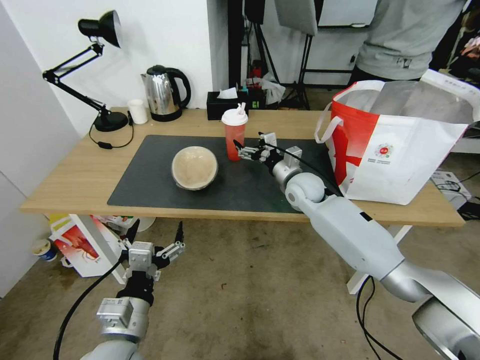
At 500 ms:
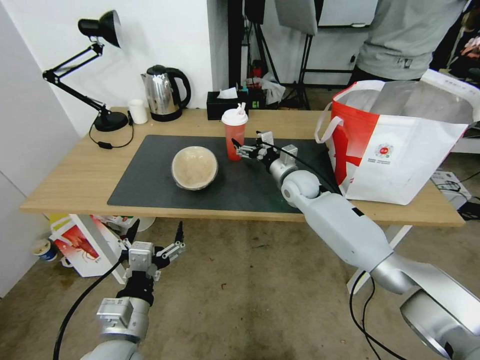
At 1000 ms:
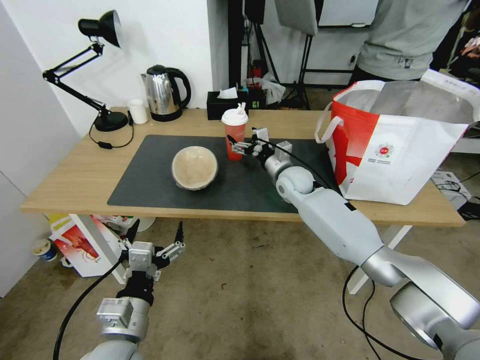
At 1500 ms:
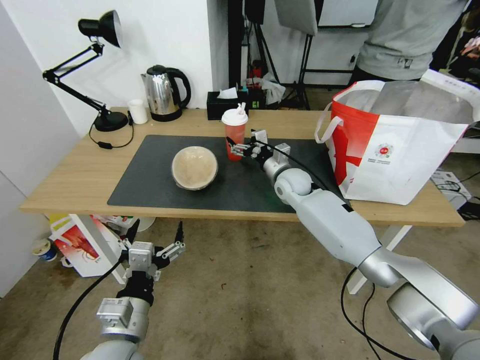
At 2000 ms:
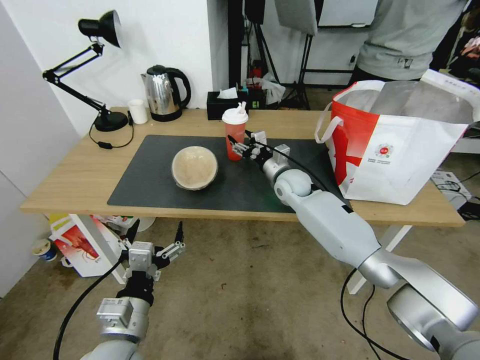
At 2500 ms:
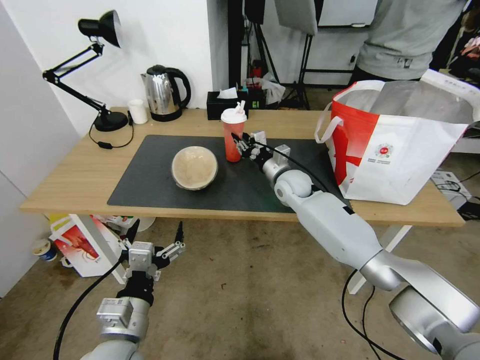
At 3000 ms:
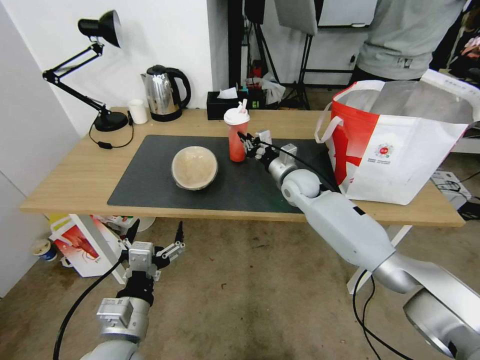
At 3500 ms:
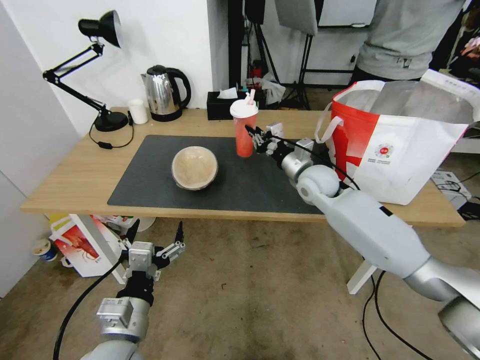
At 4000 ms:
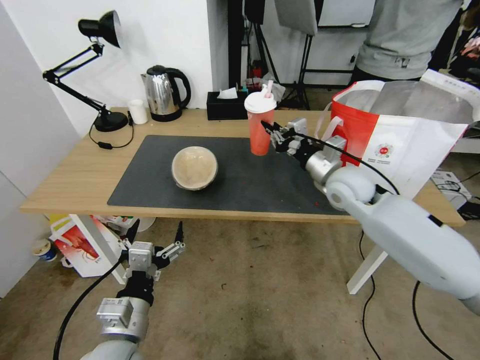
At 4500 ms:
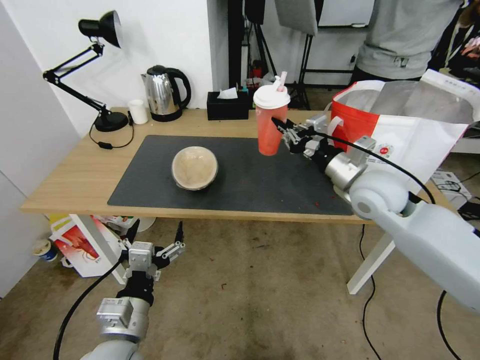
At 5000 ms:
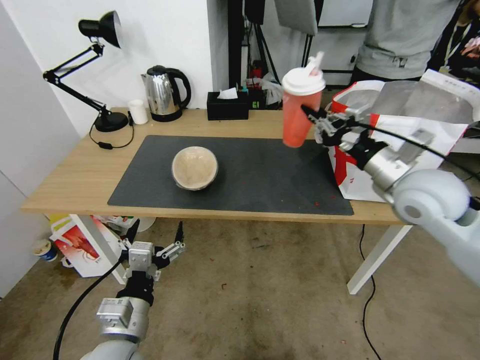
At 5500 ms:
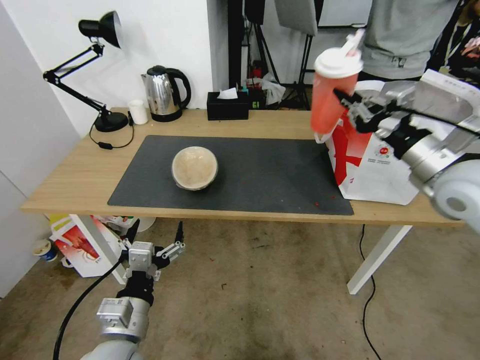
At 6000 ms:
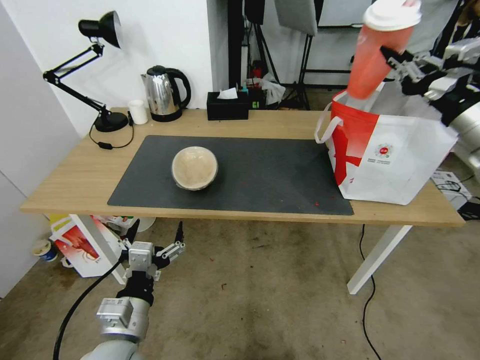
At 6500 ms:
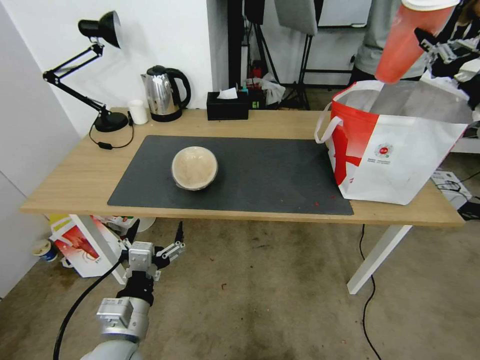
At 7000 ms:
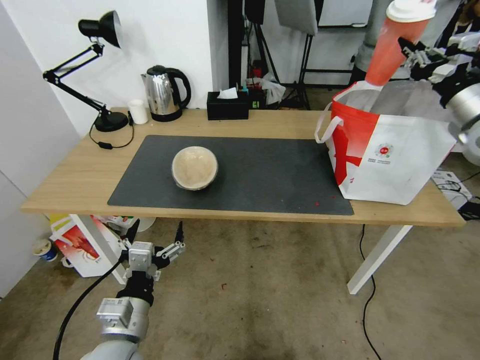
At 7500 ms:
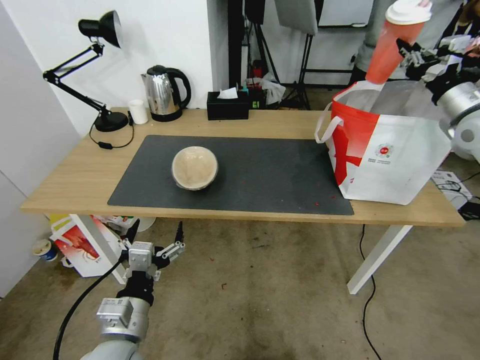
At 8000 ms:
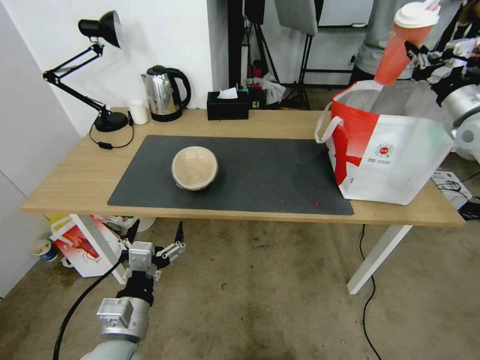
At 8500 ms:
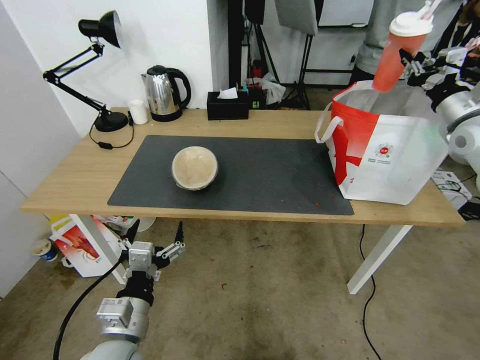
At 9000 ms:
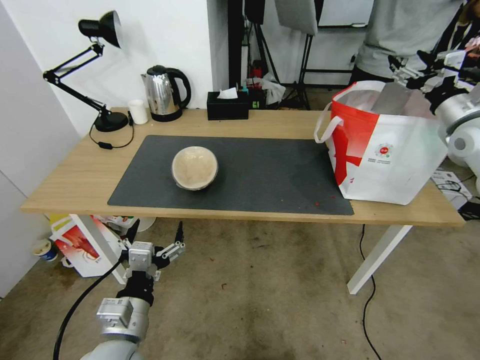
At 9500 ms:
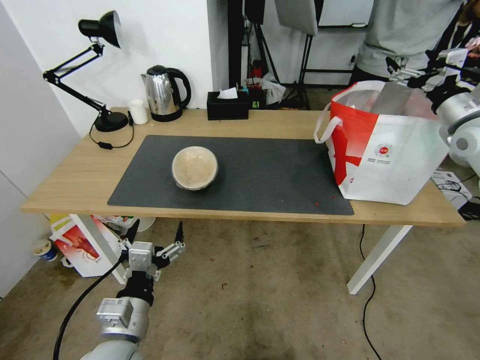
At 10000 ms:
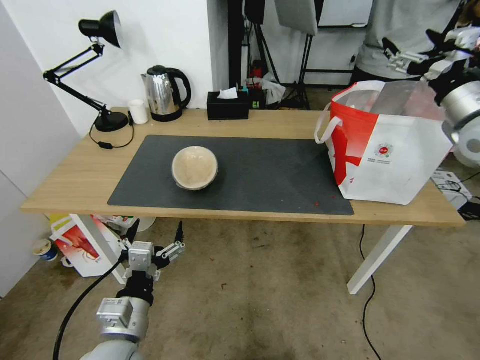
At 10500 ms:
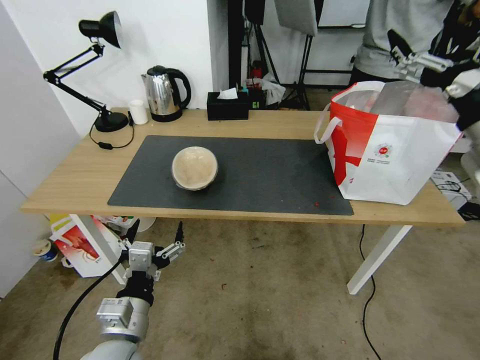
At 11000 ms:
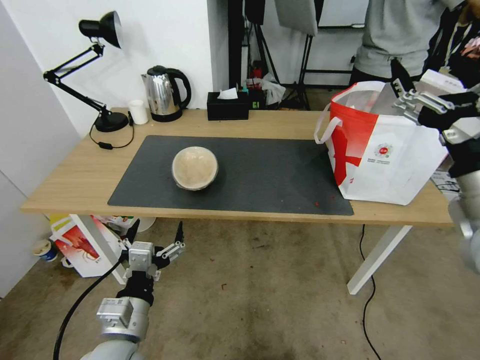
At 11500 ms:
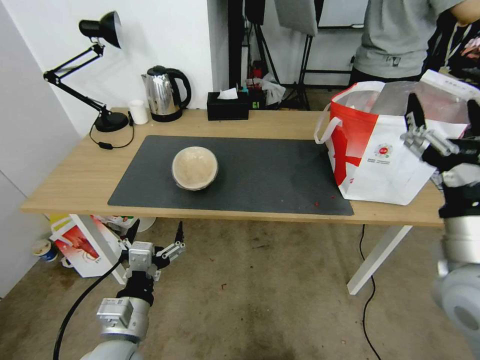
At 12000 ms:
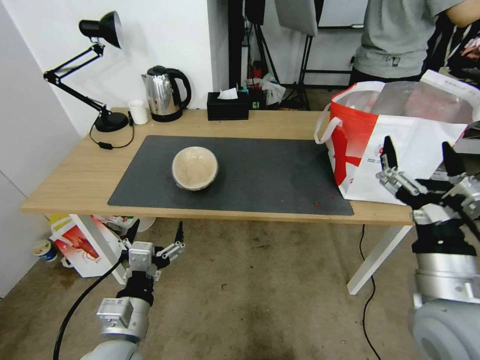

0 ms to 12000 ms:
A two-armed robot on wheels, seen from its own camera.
Task of the whole recording: Pick up the trash from the table and place it into the takeout bag.
0 ms to 2000 ms: The right gripper closes.
2000 ms to 4000 ms: The right gripper is displaced upward, to the right and backward by about 15 cm, and closes.
4000 ms to 6000 ms: The right gripper goes approximately 25 cm upward, to the right and backward.
6000 ms to 8000 ms: The right gripper is displaced forward and to the right by roughly 15 cm.
8000 ms to 10000 ms: The right gripper is displaced backward and to the left by roughly 10 cm, and opens its fingers.
10000 ms to 12000 ms: The right gripper goes about 30 cm backward, to the left and downward.

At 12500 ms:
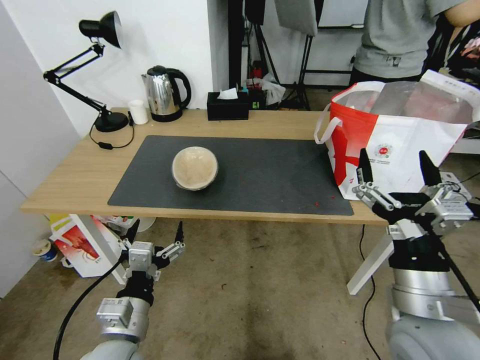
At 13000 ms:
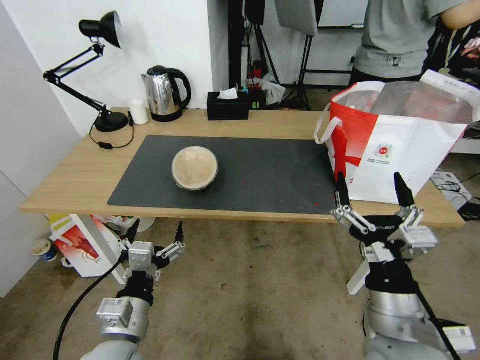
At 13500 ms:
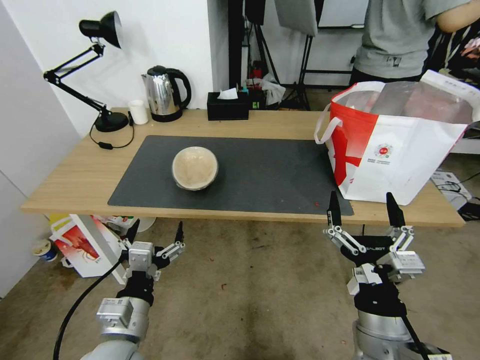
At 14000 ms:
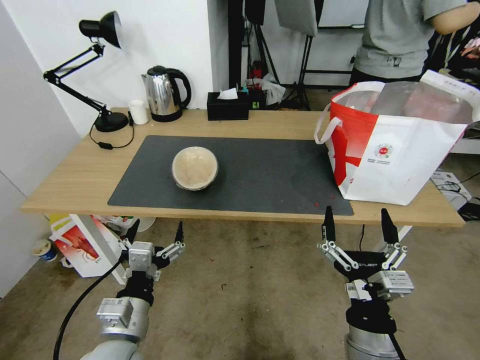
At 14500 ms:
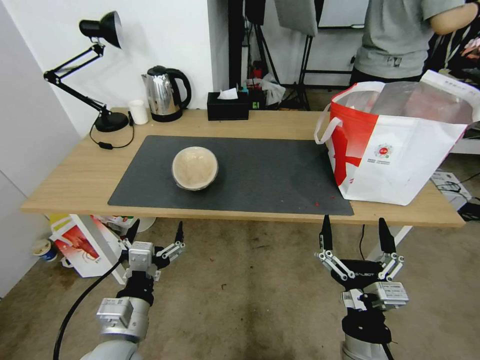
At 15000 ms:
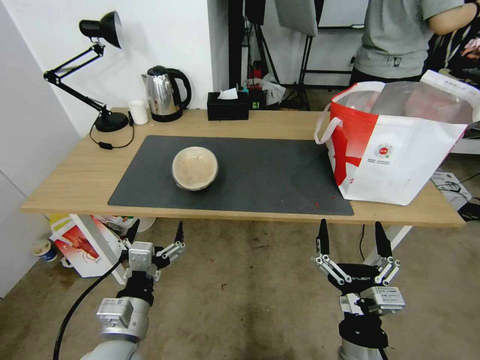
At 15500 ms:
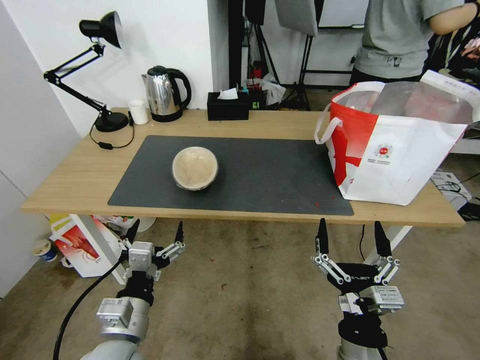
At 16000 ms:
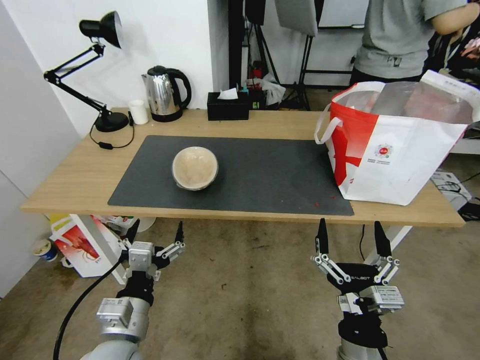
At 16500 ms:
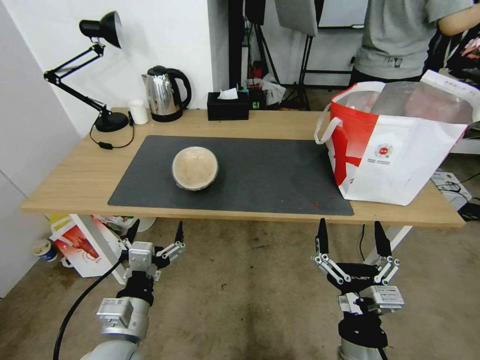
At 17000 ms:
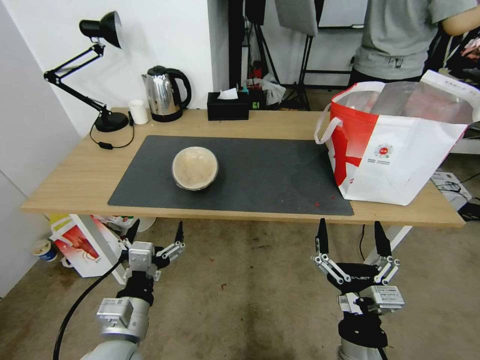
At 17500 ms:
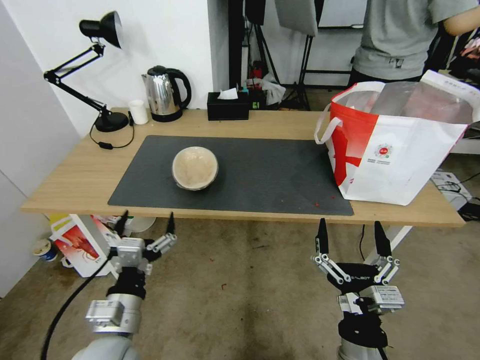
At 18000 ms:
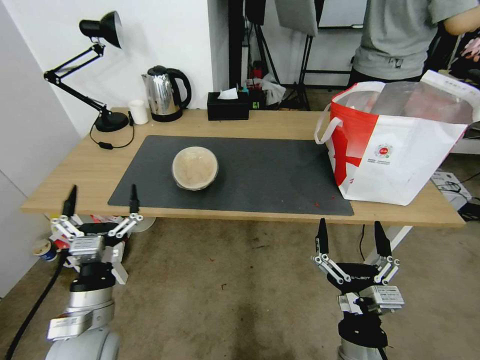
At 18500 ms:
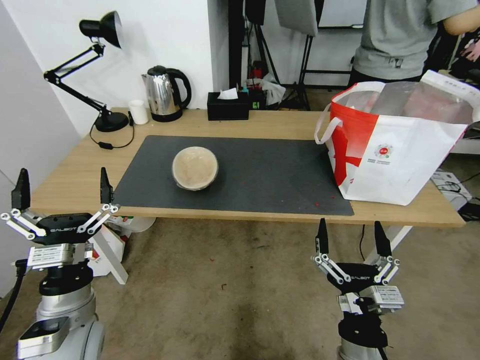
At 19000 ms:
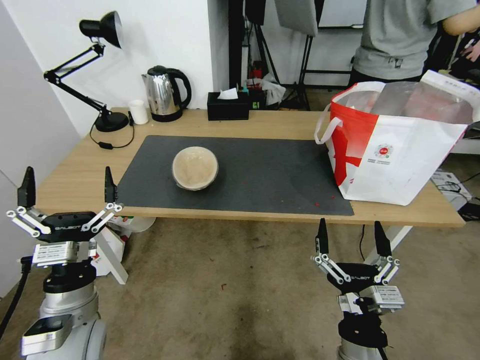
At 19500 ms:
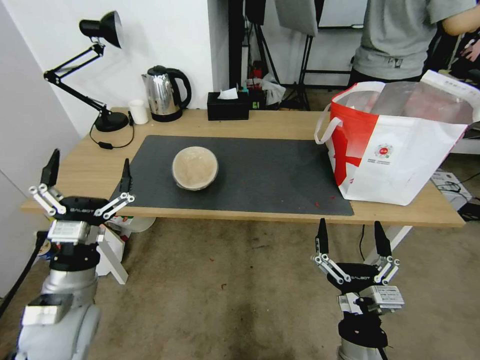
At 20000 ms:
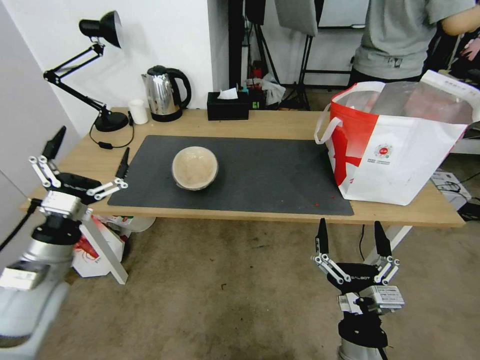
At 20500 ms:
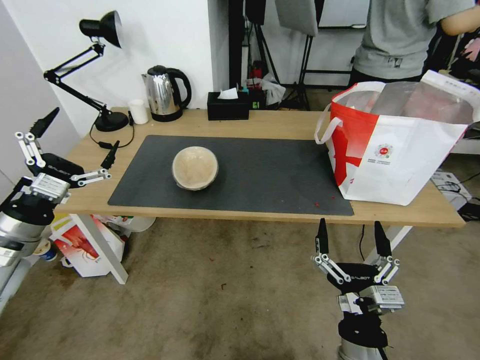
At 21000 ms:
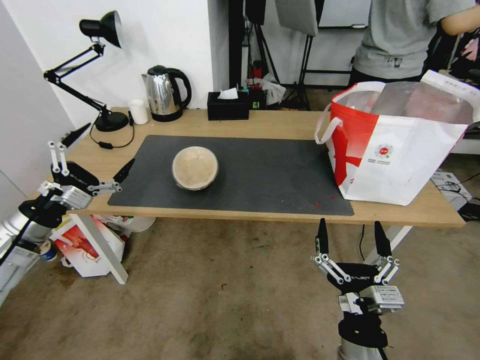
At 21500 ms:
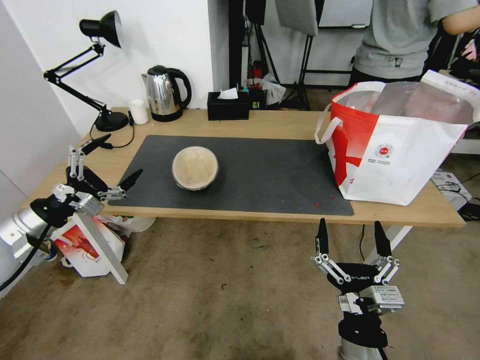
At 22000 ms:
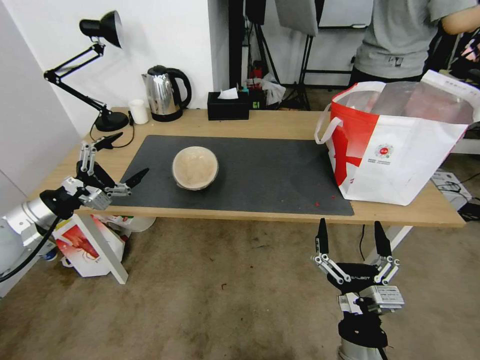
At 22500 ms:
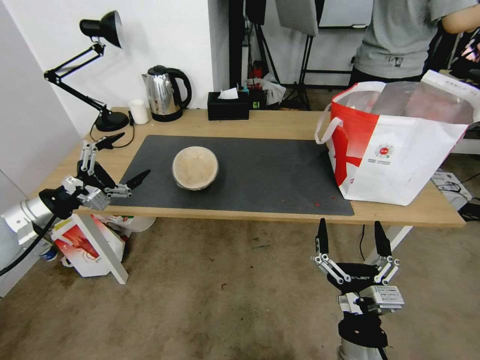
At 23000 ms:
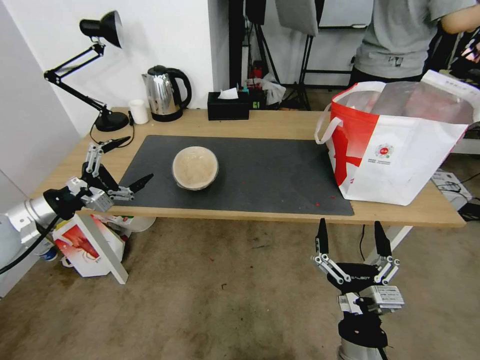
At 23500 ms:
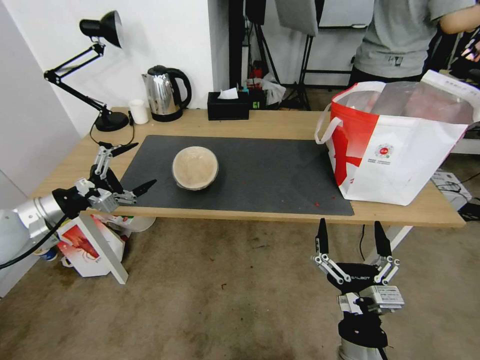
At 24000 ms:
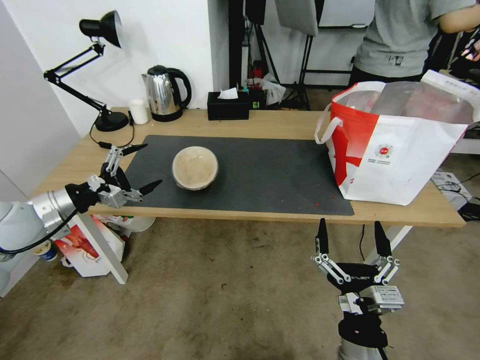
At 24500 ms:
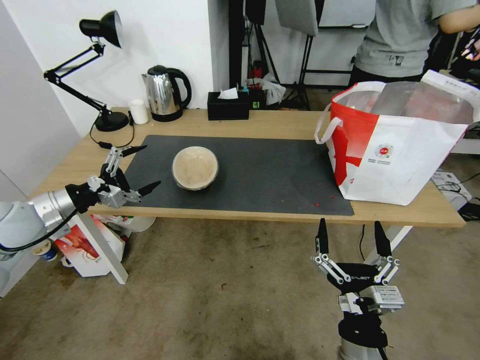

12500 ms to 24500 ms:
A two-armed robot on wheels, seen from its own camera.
Task of the whole recording: Pick up the trash from the table and place it into the takeout bag.
12500 ms to 14500 ms: The right gripper goes some 15 cm downward, to the left and backward.
14500 ms to 16500 ms: Neither gripper changes place.
16500 ms to 18500 ms: The left gripper travels to the left by approximately 5 cm.
18500 ms to 20500 ms: The left gripper goes roughly 20 cm to the left, upward and forward.
20500 ms to 22500 ms: The left gripper moves some 5 cm.
22500 ms to 24500 ms: The grippers stay close to where they were, moving slightly.

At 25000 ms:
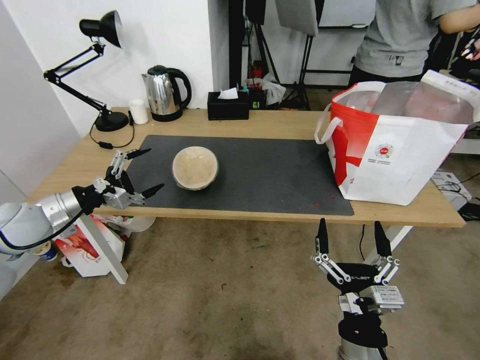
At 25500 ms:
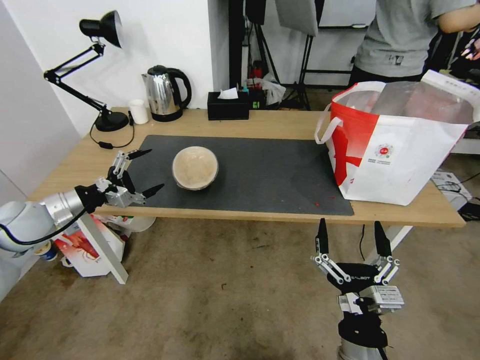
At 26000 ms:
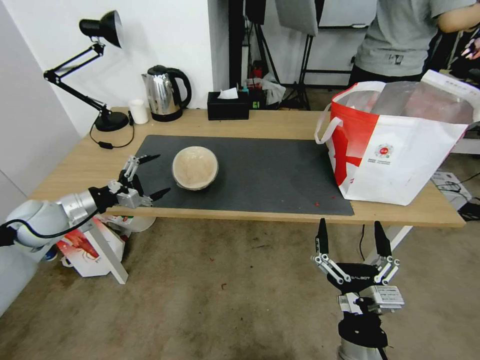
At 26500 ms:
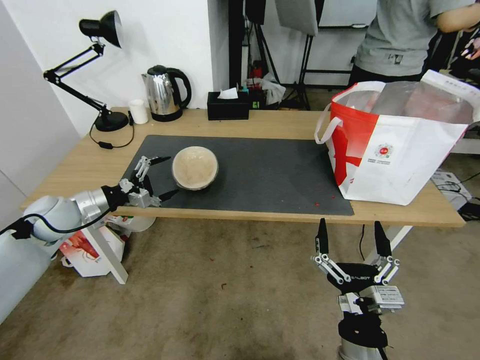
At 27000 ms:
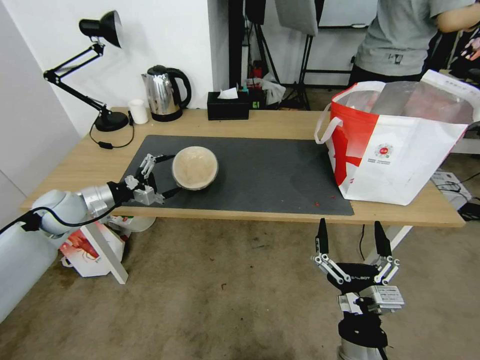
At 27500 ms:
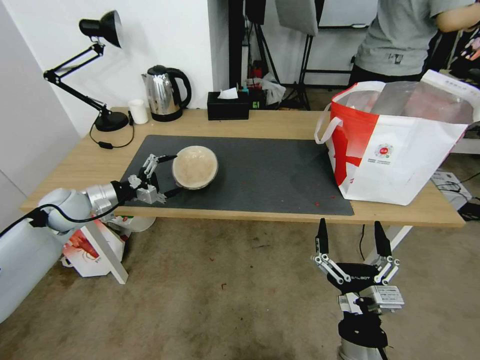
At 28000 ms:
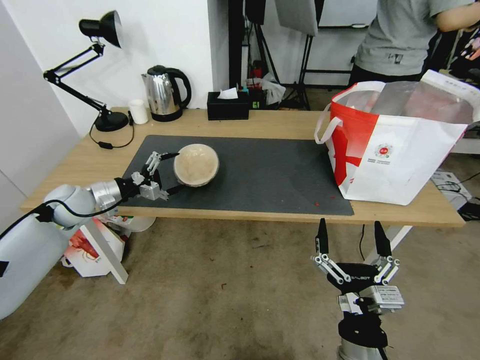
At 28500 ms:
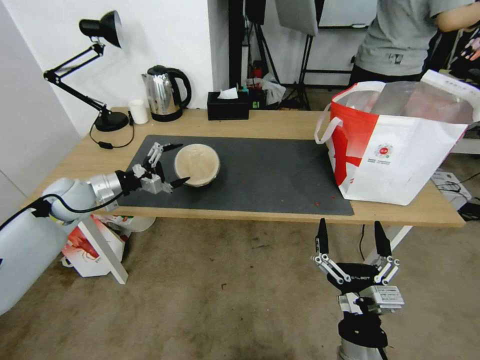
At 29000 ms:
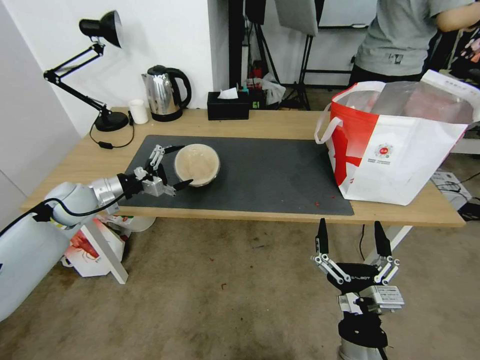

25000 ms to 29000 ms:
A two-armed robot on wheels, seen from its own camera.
Task of the whole recording: Pick up the trash from the table and place it into the takeout bag.
25000 ms to 27000 ms: The left gripper travels forward by some 5 cm.
27000 ms to 29000 ms: The grippers make only small movements.
